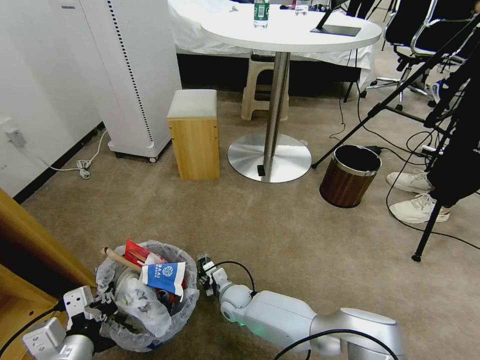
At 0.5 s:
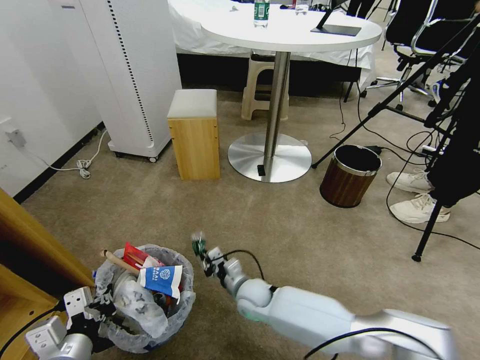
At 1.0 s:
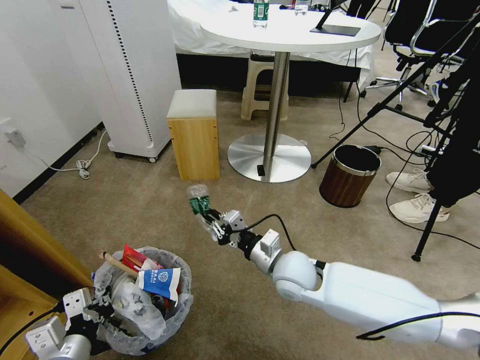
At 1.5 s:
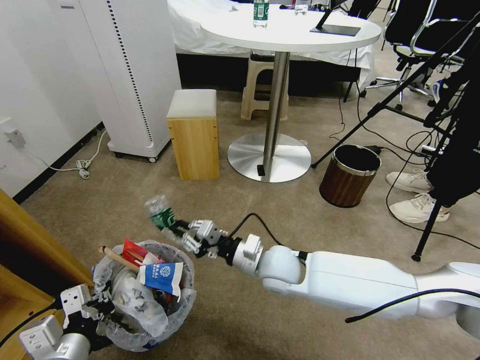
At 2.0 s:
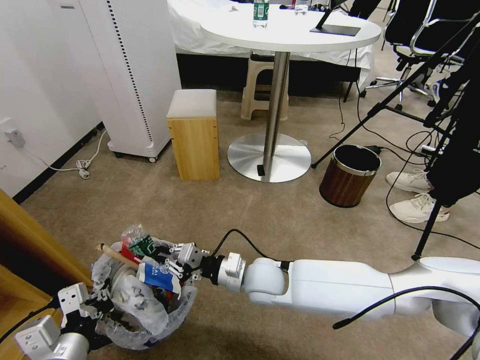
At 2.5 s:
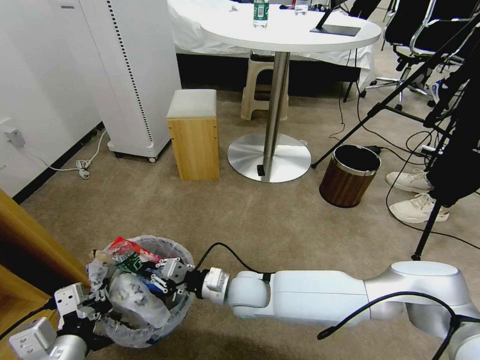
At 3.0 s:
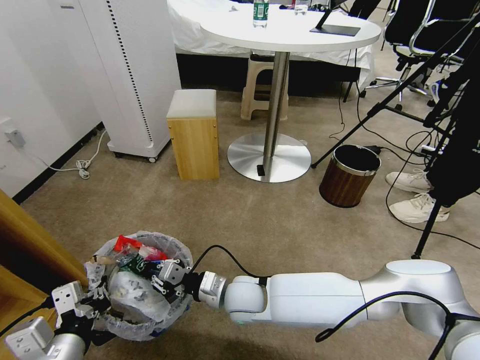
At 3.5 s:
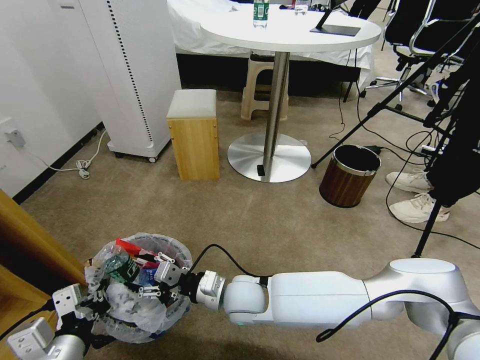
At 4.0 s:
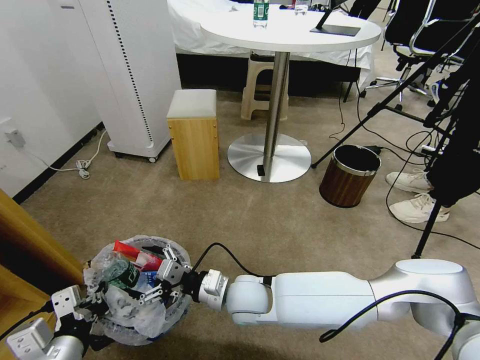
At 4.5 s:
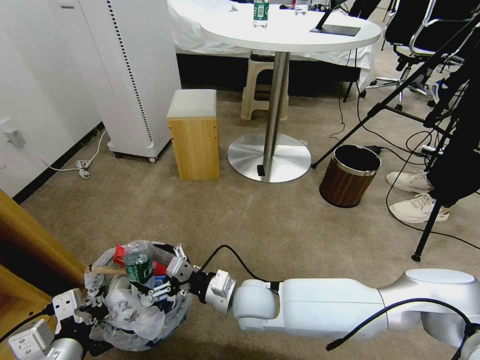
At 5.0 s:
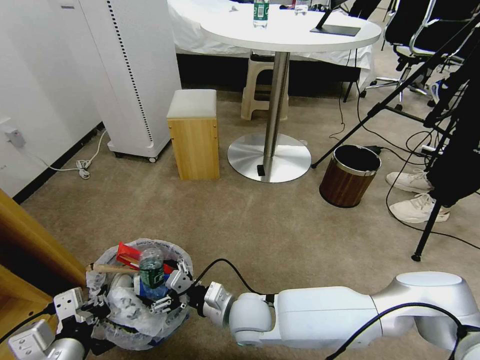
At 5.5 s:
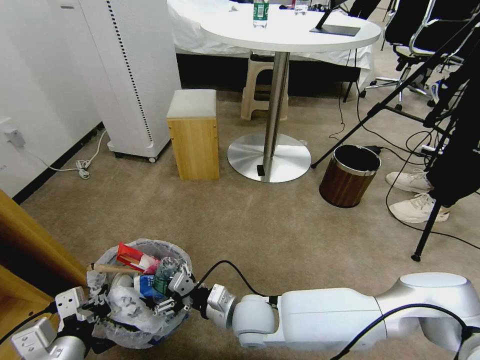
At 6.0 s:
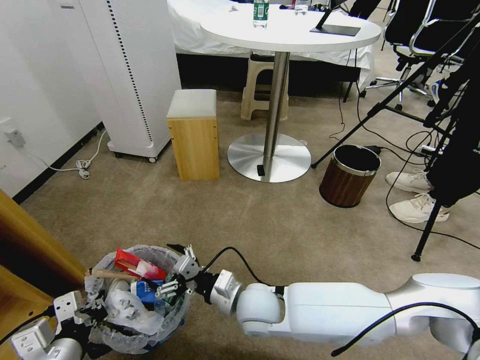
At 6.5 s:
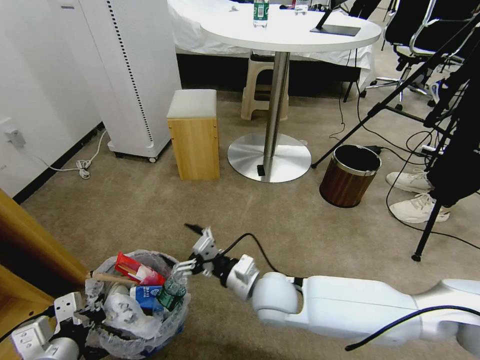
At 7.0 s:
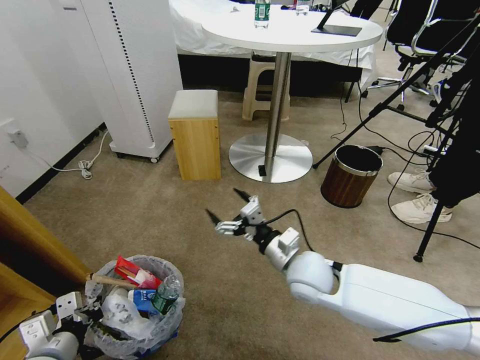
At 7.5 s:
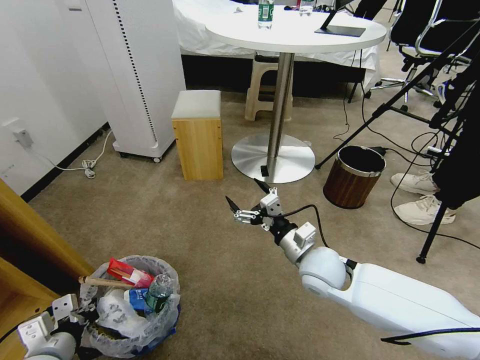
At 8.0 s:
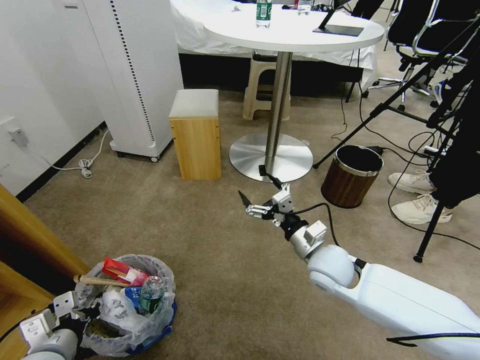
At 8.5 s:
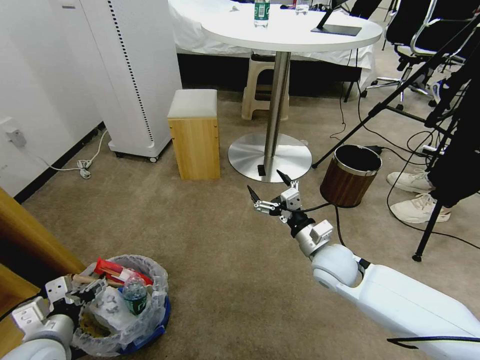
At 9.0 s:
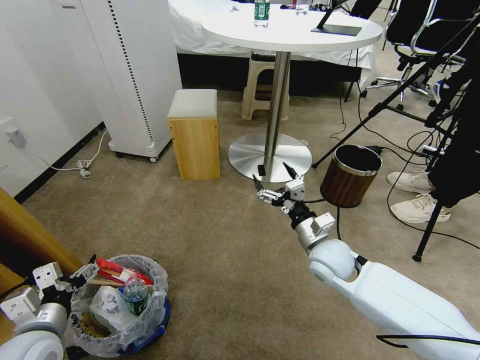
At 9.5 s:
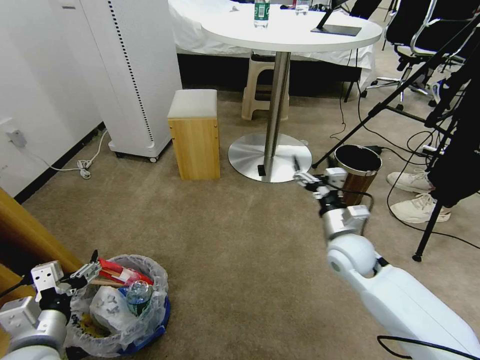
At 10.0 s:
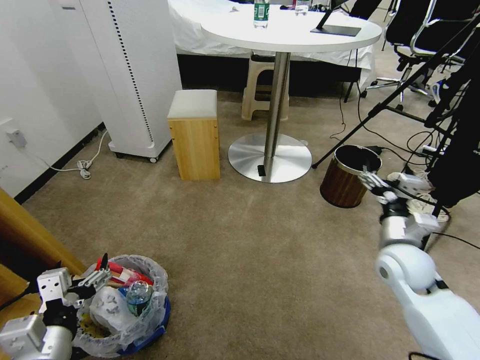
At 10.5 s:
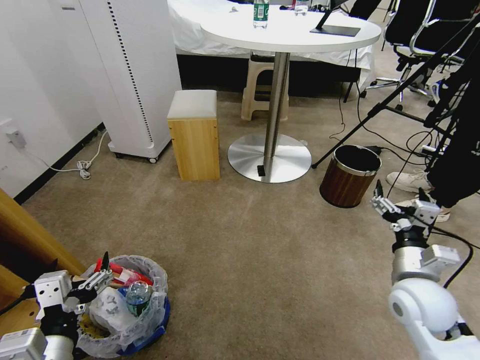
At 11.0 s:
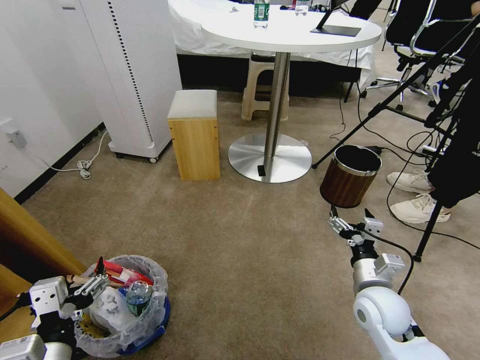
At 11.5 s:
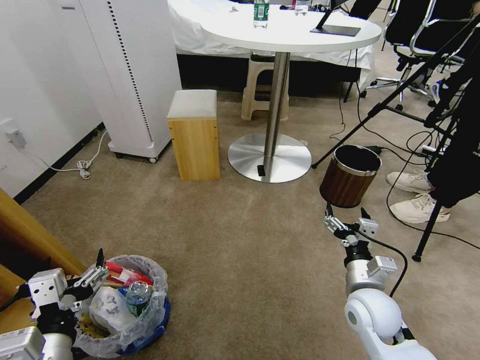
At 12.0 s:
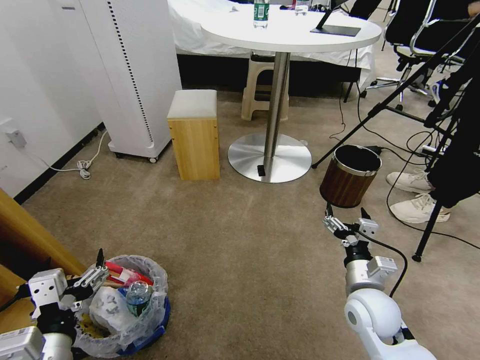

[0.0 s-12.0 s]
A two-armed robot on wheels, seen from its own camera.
Task of the whole recording: Pick up the trash bin and place the garbage on the floor into it.
0.0 to 2.0 s: The right gripper moves upward, about 20 cm.
2.0 to 4.0 s: The right gripper shifts by some 5 cm, and opens up.
4.0 to 6.0 s: There are only small adjustments of the grippers.
6.0 to 8.0 s: The left gripper moves downward, some 5 cm, and opens up. Meanwhile the right gripper is displaced to the right and forward by approximately 20 cm.
8.0 to 10.0 s: The right gripper moves to the right, some 15 cm; the left gripper is displaced upward by some 5 cm, and opens its fingers.
10.0 to 12.0 s: The right gripper heads backward, to the left and downward, covering about 10 cm.
